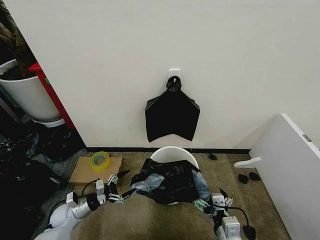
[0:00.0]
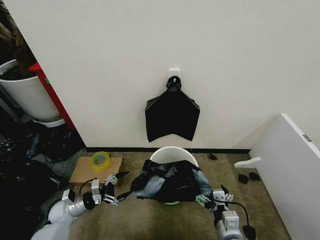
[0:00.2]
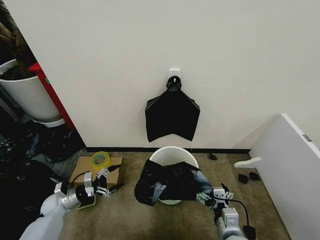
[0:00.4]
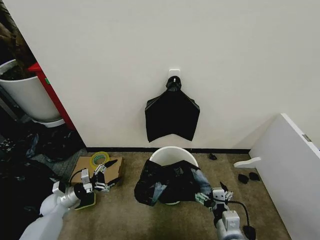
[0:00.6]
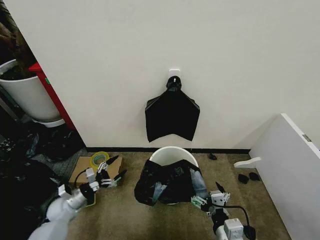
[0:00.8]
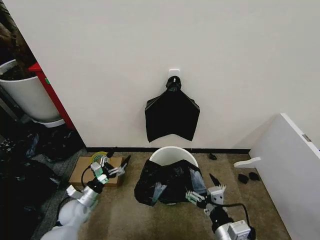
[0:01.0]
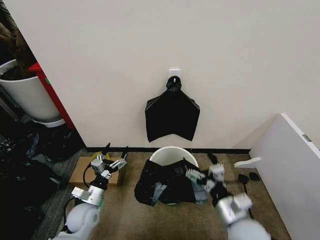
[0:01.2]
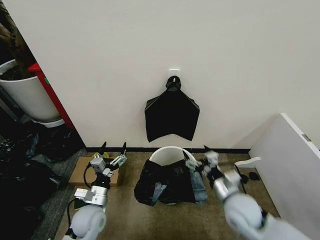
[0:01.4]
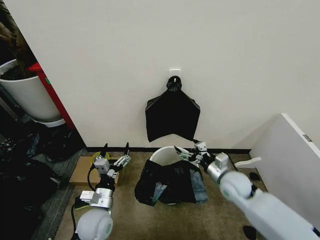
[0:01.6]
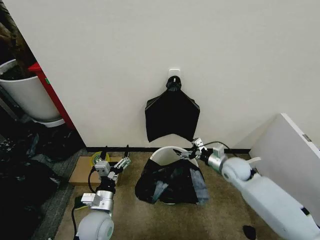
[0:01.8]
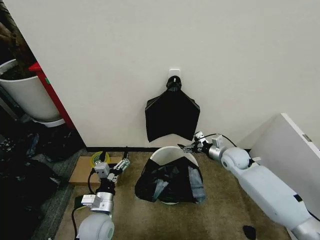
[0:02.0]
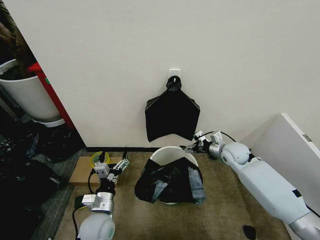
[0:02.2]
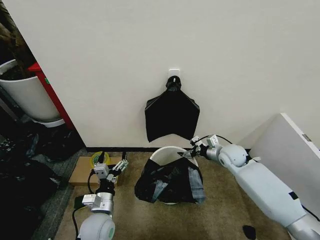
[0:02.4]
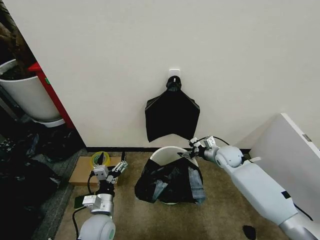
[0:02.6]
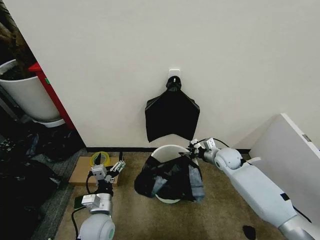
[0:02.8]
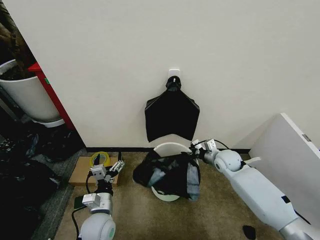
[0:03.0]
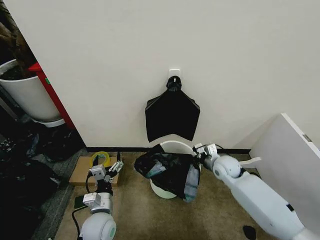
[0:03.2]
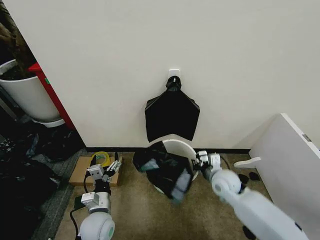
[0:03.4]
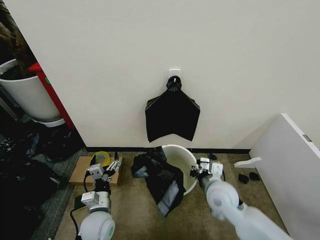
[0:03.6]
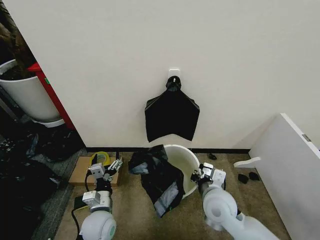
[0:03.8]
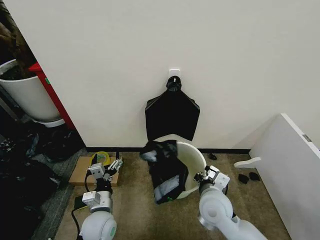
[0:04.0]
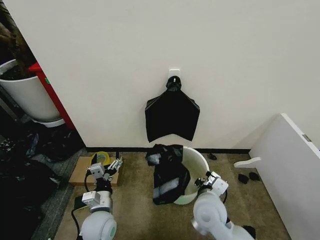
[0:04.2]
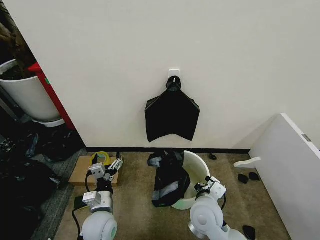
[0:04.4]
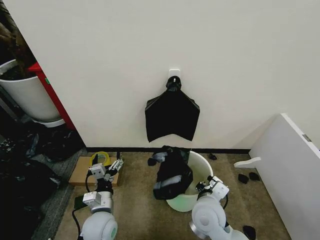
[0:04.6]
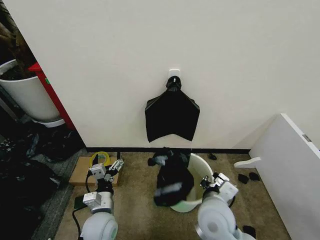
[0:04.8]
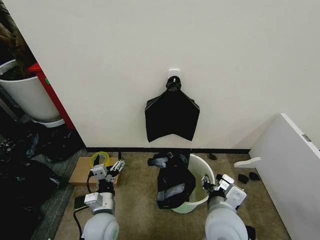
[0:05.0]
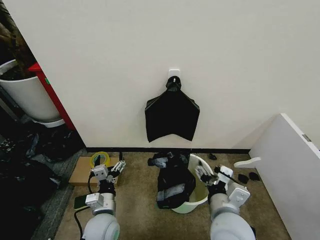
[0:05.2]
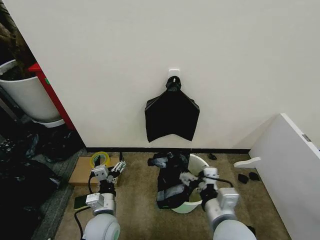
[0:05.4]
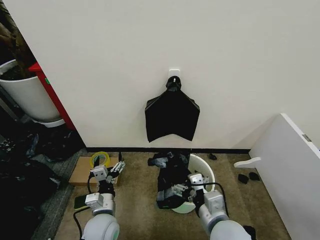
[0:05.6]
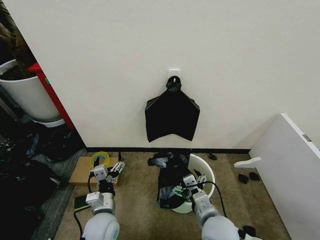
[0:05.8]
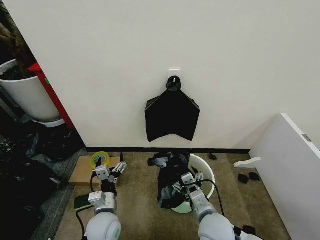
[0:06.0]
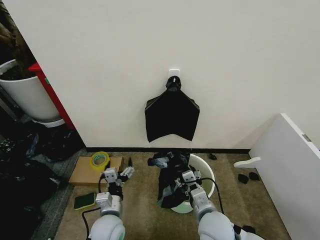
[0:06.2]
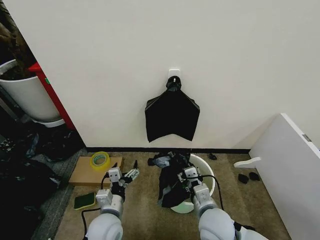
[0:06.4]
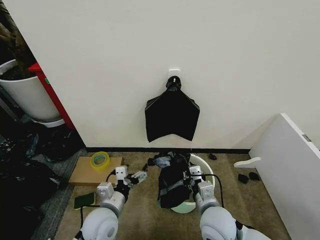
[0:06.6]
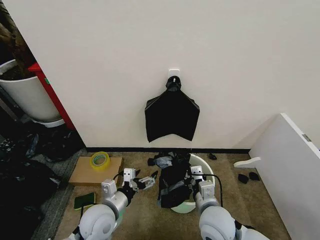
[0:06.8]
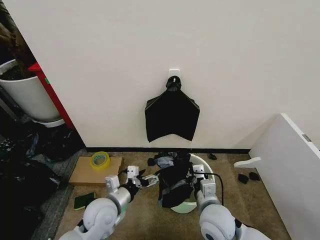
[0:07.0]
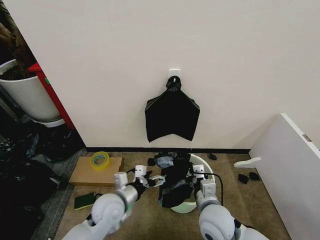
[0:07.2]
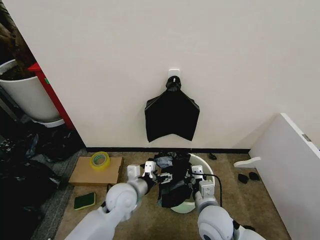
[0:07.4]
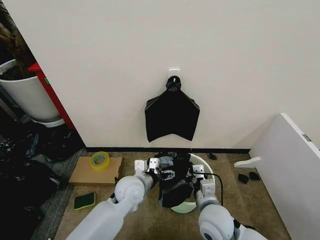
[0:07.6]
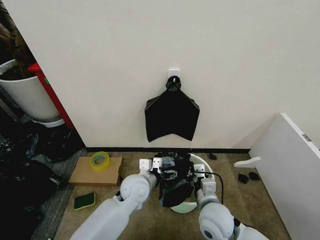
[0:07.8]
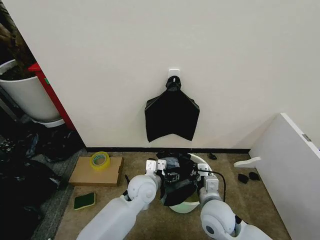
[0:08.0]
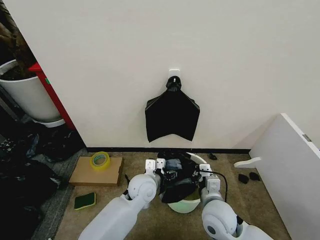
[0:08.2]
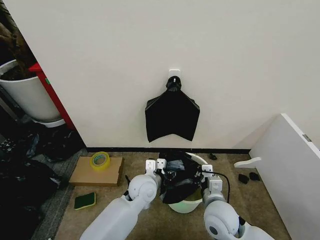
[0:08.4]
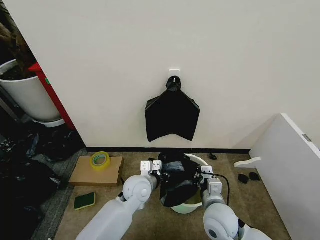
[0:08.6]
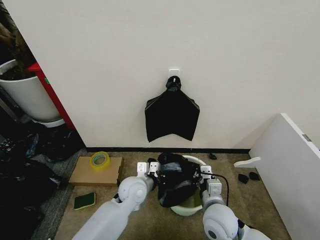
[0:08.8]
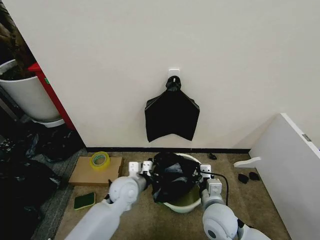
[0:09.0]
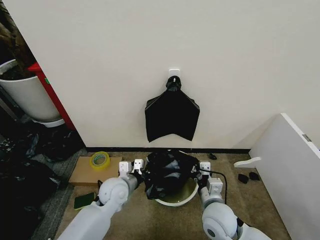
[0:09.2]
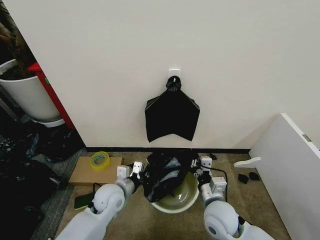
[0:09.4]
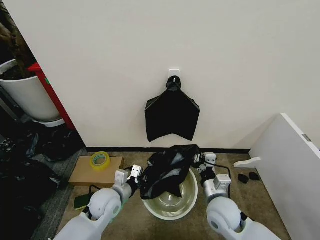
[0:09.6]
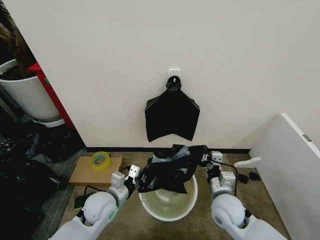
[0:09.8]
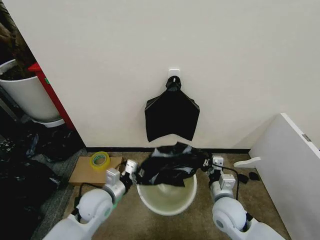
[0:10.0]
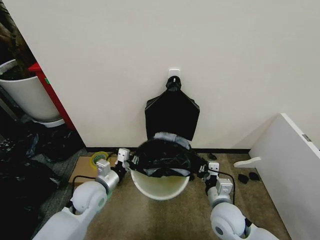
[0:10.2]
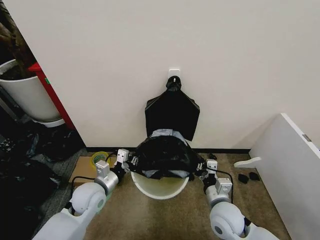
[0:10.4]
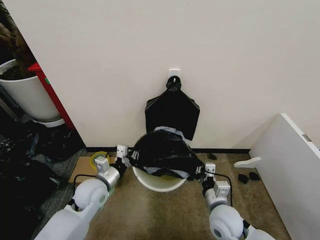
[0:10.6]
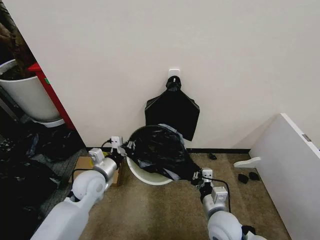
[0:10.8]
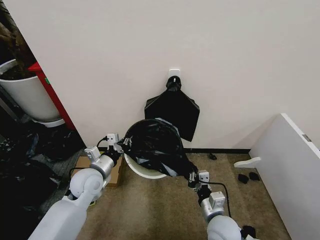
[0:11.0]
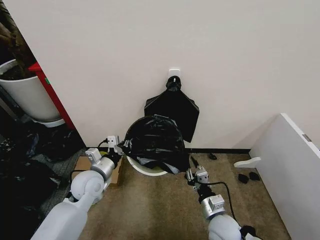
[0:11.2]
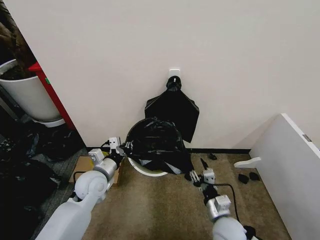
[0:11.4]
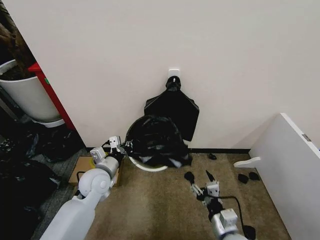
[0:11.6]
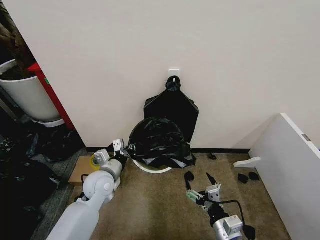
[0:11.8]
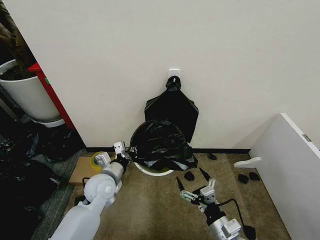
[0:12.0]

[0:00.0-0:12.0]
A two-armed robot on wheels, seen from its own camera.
Task of the whole recording: Place the garbage bag over the trash bin.
0:00.0 to 0:01.6: The left gripper travels to the right and upward by approximately 20 cm; the right gripper travels forward by about 20 cm.
0:01.6 to 0:03.0: The right gripper travels forward by some 10 cm, and closes up.
0:03.0 to 0:04.4: The right gripper shifts about 25 cm backward and to the left, and closes up.
0:04.4 to 0:06.0: The right gripper travels upward and back again, roughly 5 cm each way, and opens up.
0:06.0 to 0:07.6: The right gripper closes up; the left gripper shifts some 15 cm forward, to the right and upward.
0:07.6 to 0:09.0: The left gripper closes up.
0:09.0 to 0:10.4: The left gripper travels to the left by approximately 10 cm.
0:10.4 to 0:12.0: The right gripper is displaced backward by about 10 cm, and opens its fingers.

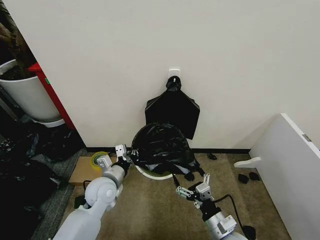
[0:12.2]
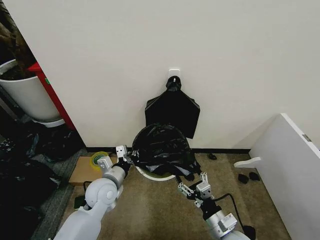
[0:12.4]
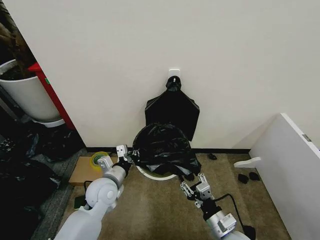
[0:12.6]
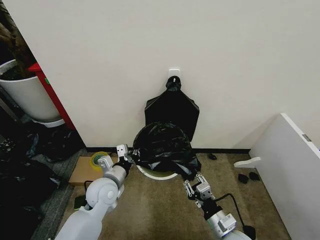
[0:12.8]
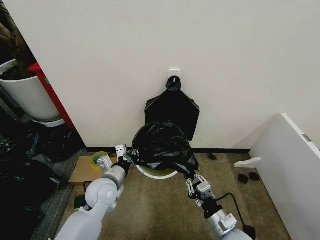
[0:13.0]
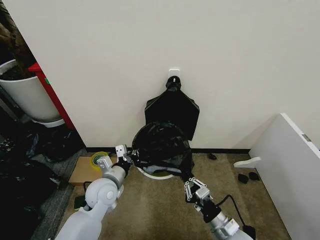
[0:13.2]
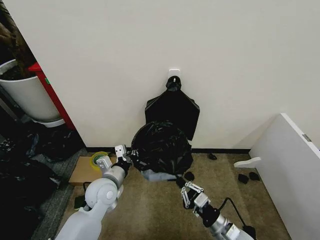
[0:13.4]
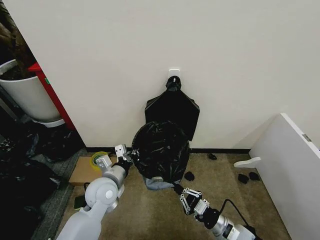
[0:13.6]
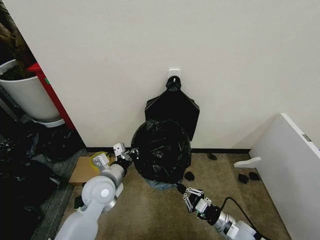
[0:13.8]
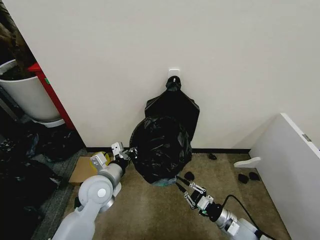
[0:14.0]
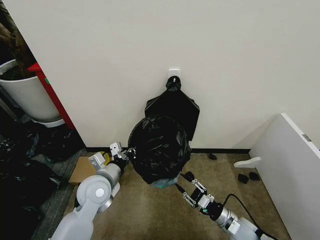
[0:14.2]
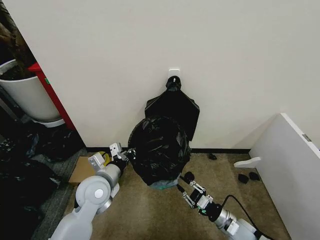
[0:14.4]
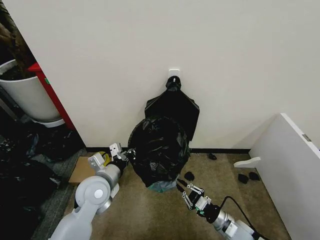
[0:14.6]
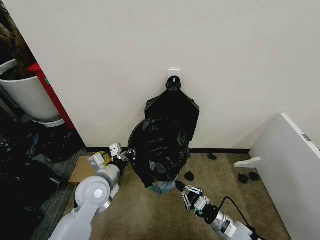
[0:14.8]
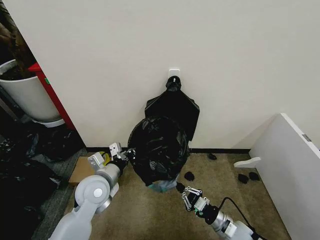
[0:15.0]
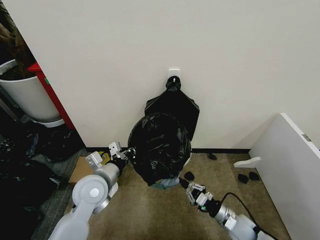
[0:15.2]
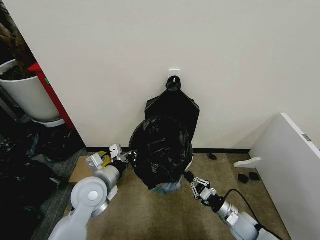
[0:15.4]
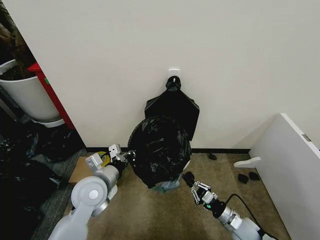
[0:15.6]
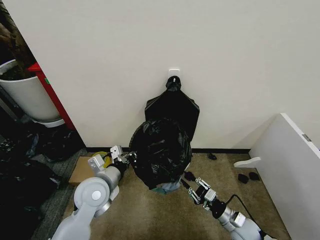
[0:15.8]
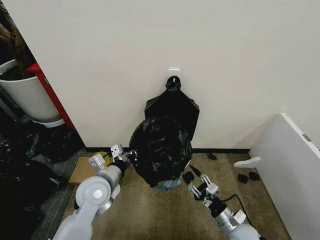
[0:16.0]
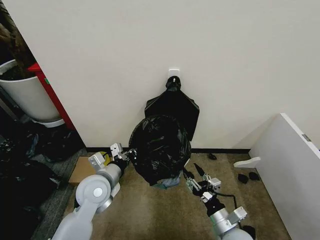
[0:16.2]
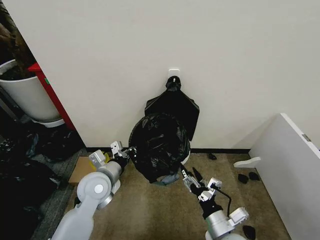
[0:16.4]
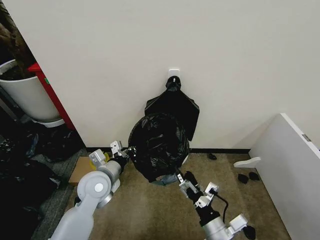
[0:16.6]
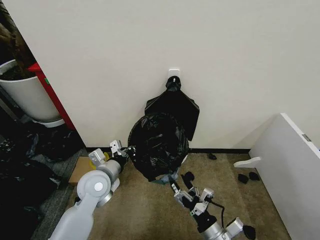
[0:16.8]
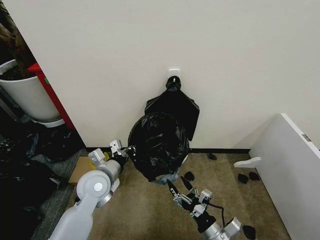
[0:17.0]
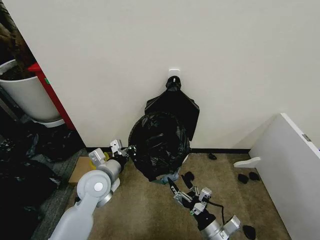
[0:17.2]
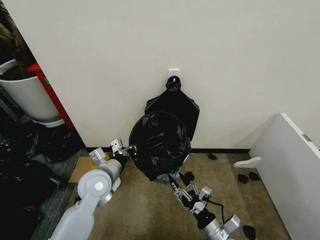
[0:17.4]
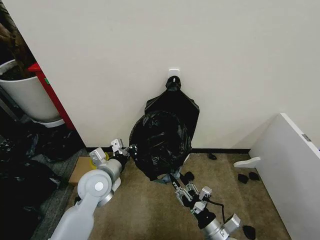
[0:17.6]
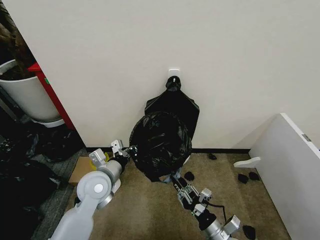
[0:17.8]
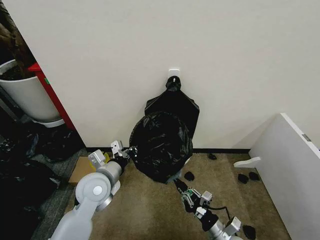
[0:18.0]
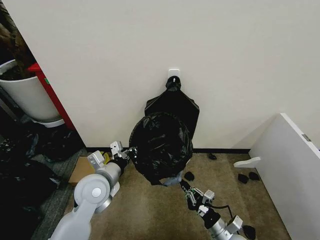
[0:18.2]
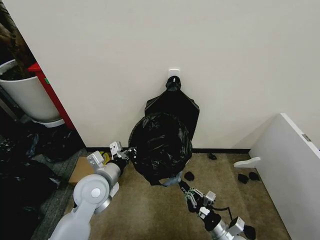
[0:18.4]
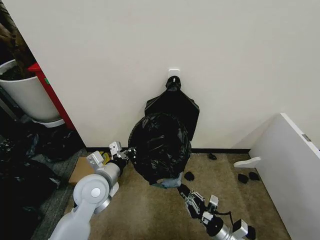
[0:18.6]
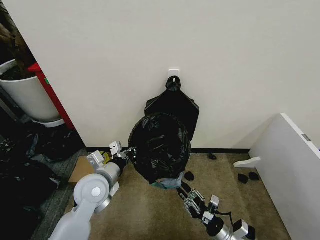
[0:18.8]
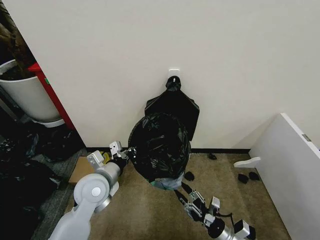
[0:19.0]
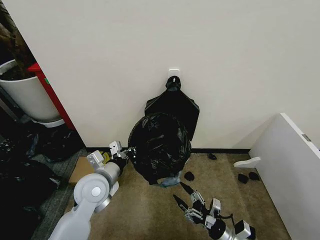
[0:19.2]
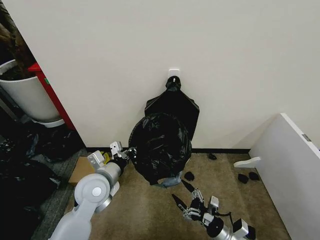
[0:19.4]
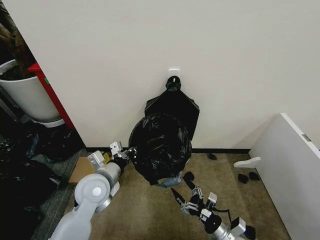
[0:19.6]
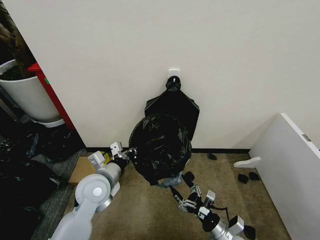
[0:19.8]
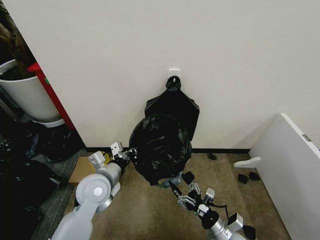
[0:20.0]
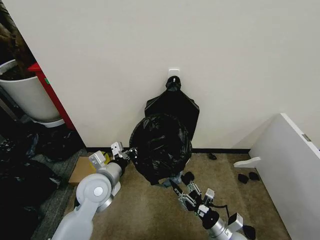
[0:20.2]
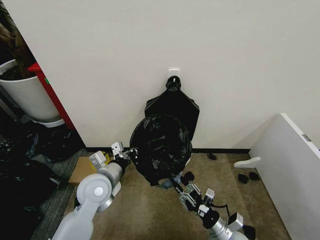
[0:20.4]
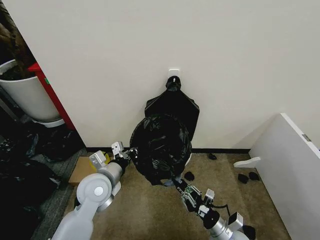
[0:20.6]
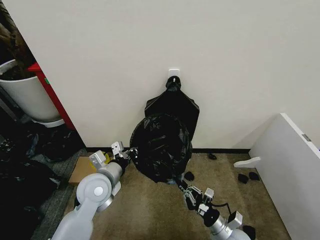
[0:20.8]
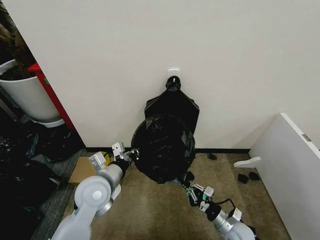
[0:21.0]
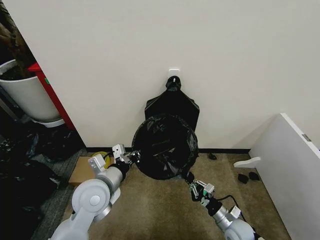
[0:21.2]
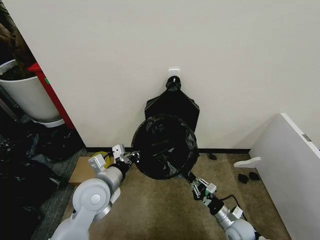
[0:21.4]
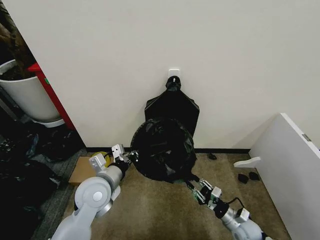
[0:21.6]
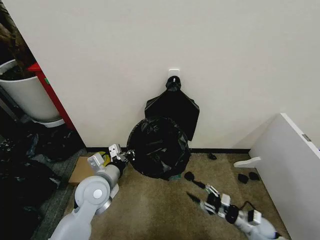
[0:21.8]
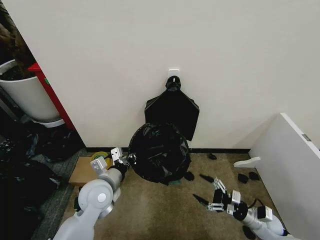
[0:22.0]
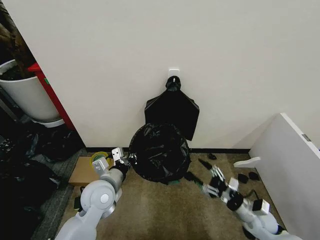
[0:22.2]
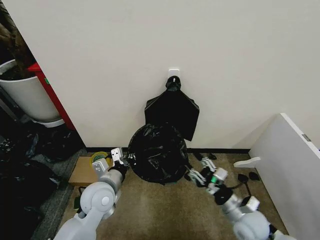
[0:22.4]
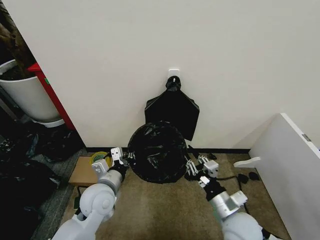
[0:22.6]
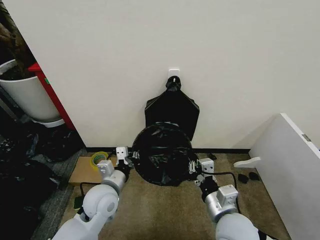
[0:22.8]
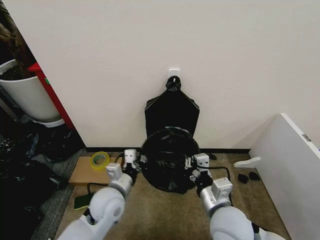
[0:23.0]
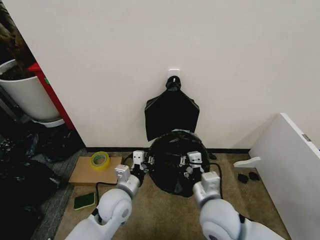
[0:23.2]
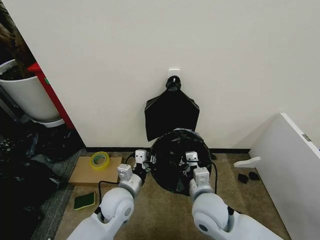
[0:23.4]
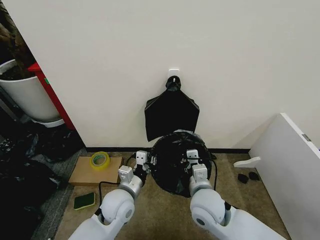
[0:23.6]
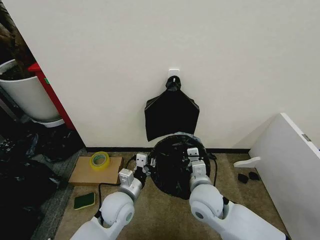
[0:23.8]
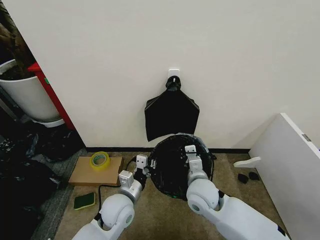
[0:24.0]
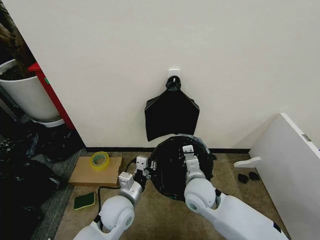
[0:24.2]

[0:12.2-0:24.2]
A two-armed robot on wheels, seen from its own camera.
Task of the whole recording: Place the garbage bag over the trash bin.
0:12.2 to 0:13.8: The right gripper is displaced downward, to the right and forward by approximately 10 cm, and closes up.
0:13.8 to 0:15.2: The right gripper opens, then closes again.
0:15.2 to 0:16.6: The right gripper goes some 20 cm upward, to the left and backward, and opens.
0:16.6 to 0:18.2: The right gripper travels downward and to the right by about 10 cm, and closes its fingers.
0:18.2 to 0:19.8: The right gripper opens up.
0:19.8 to 0:21.2: The right gripper heads forward and to the right, covering some 10 cm, and closes up.
0:21.2 to 0:22.6: The right gripper is displaced upward by about 15 cm, and opens and closes again.
0:22.6 to 0:24.2: The right gripper heads to the left and forward, covering roughly 15 cm; the left gripper travels to the right by roughly 5 cm.
